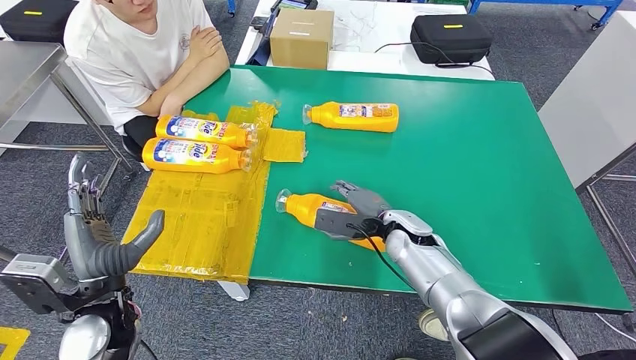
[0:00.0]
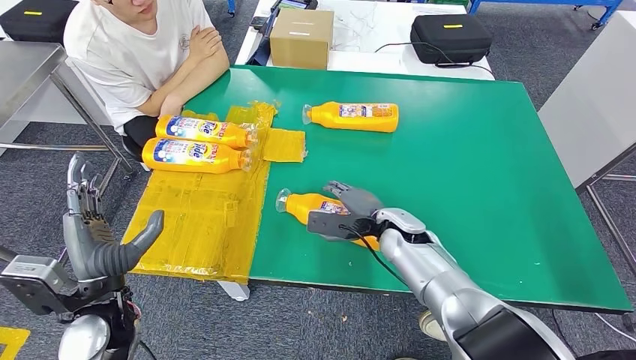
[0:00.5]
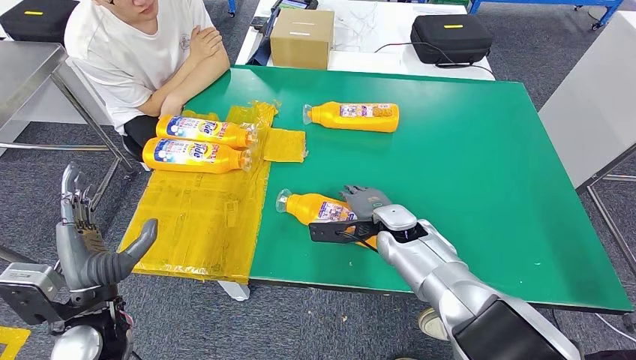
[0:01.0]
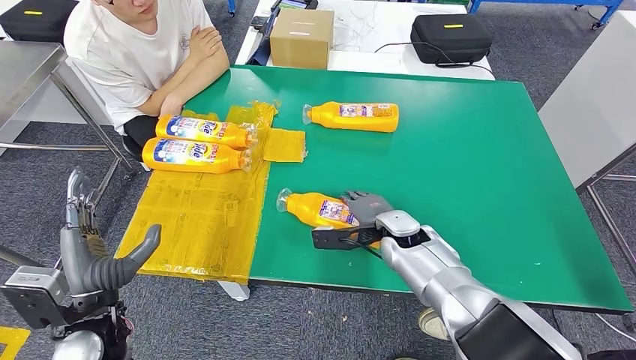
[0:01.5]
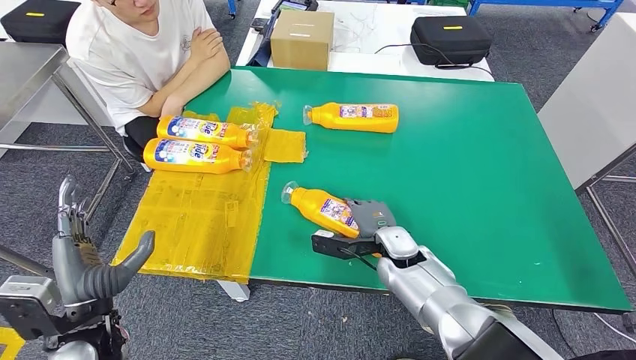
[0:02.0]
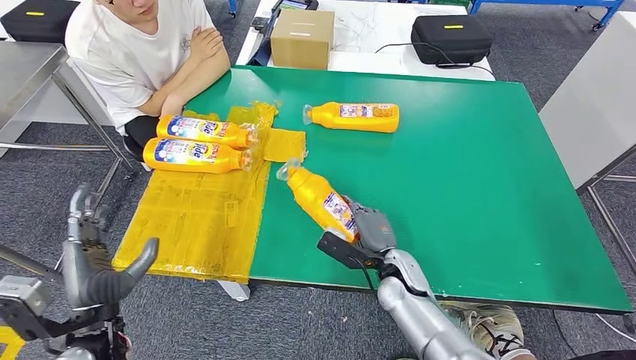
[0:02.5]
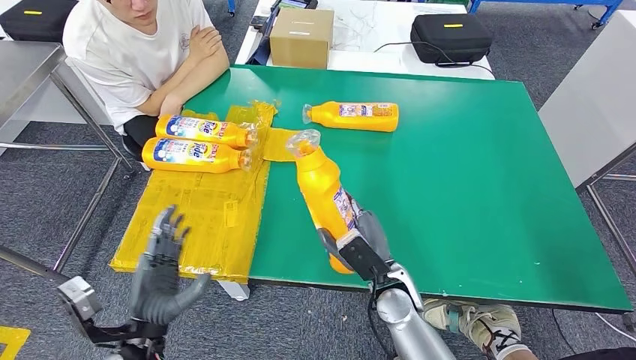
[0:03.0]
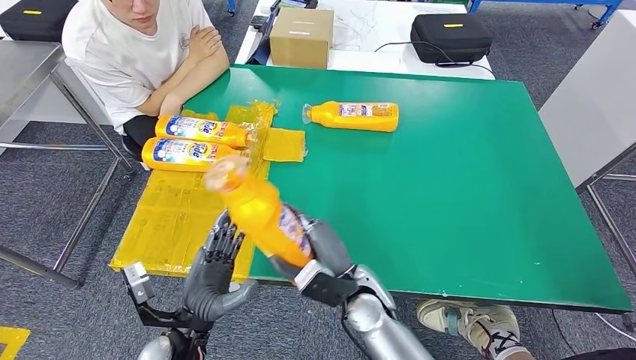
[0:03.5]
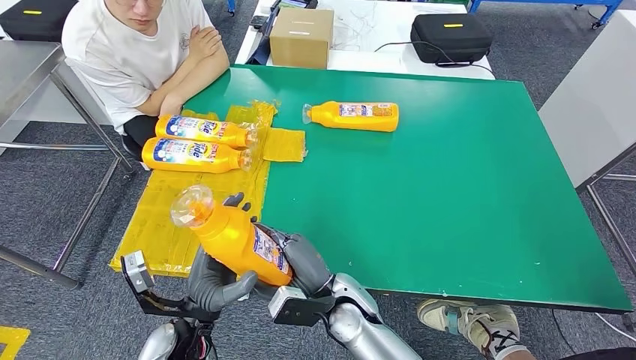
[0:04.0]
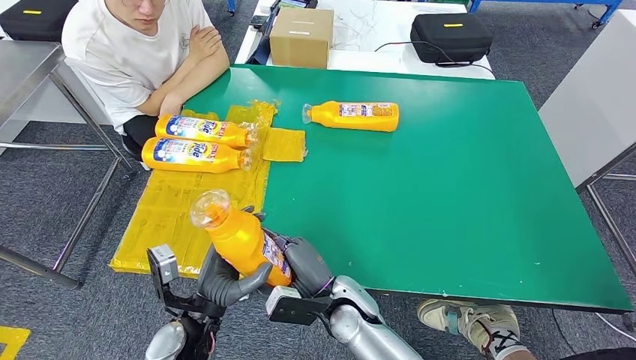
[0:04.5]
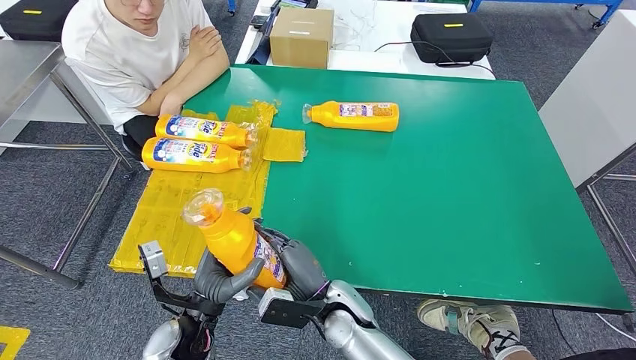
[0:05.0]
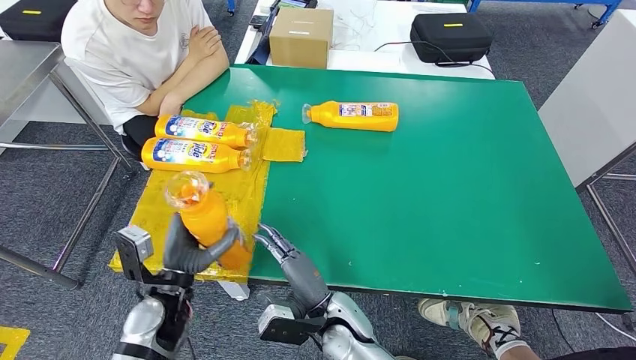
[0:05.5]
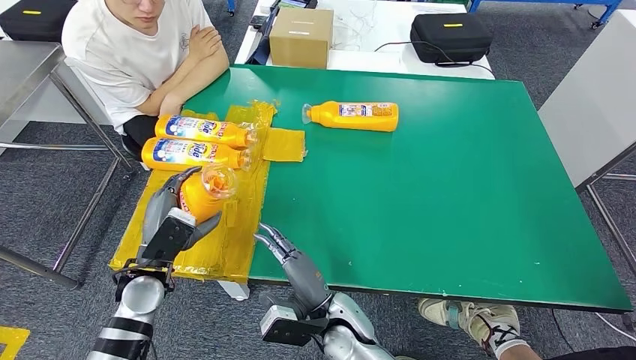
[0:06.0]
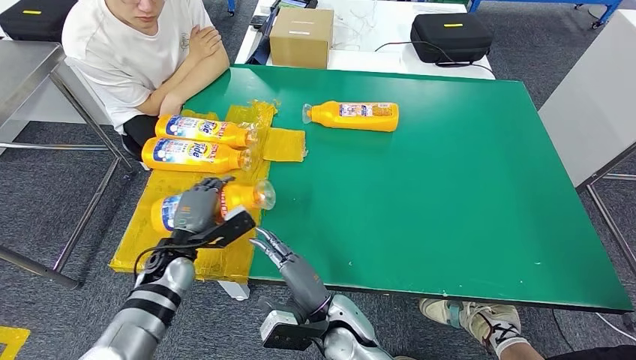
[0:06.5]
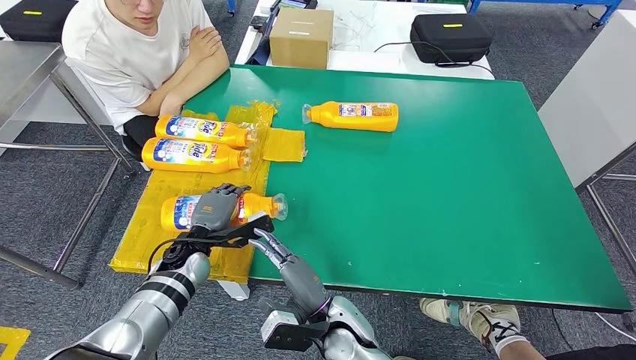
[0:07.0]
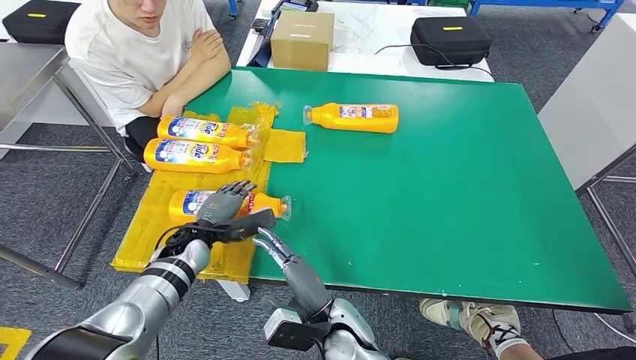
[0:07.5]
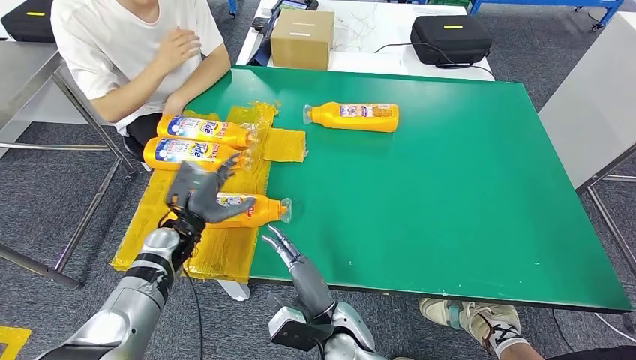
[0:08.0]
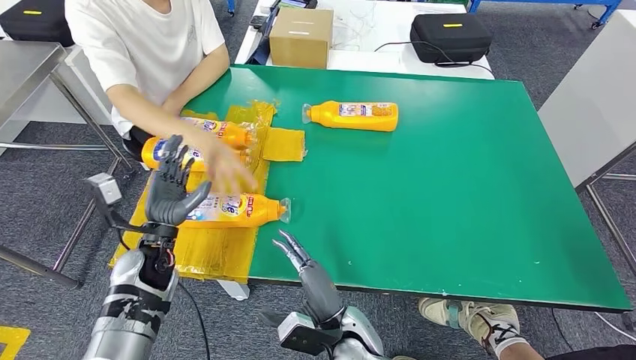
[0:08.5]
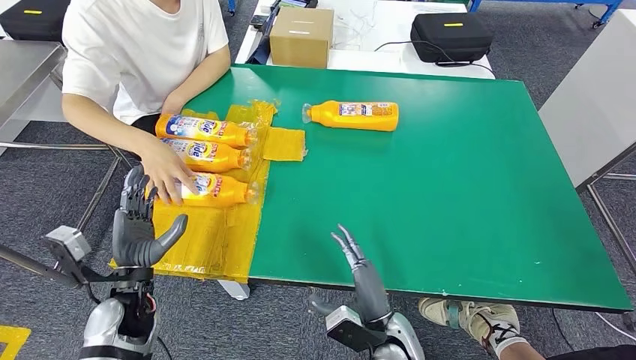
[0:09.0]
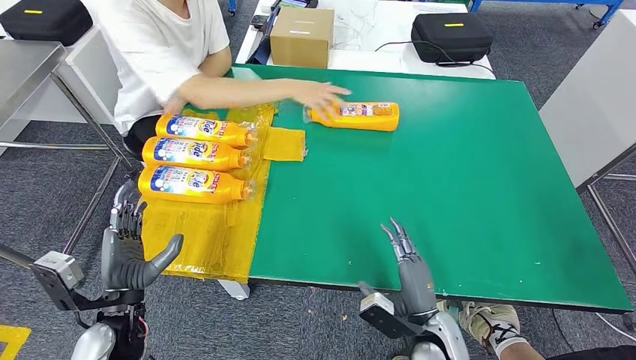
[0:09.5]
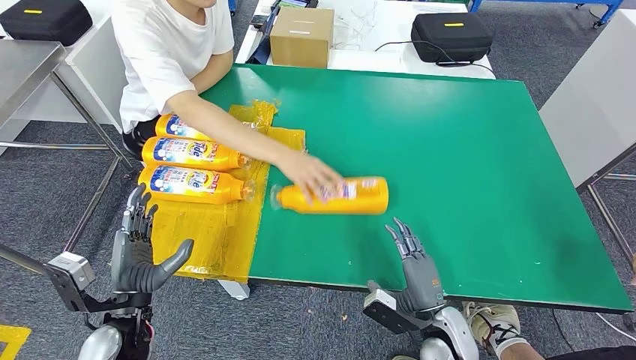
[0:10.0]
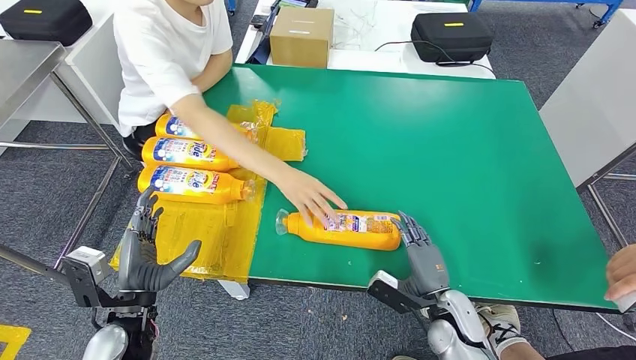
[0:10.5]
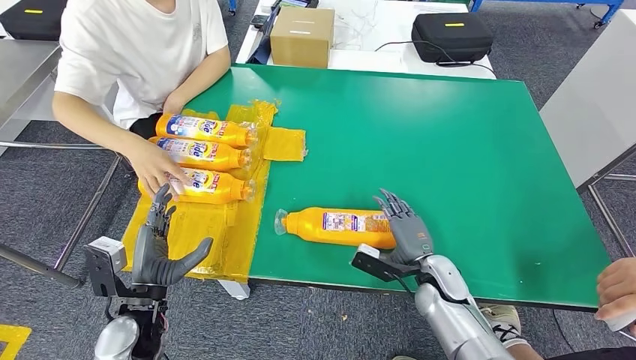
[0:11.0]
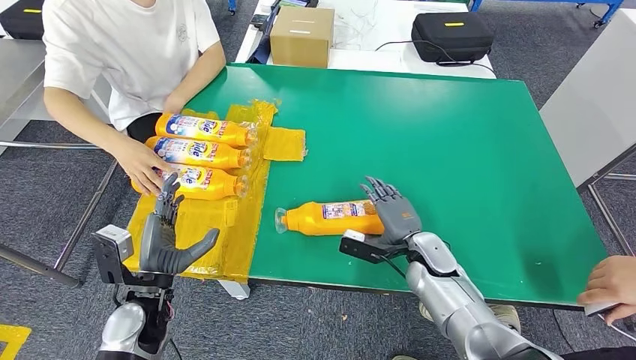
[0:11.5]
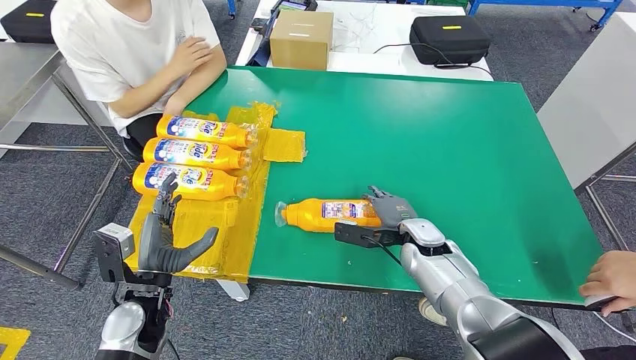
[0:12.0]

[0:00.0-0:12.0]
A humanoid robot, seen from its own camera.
Step, 0:00.0 to 0:03.5: Pick up the fast-moving consumer goods bottle from the table.
Step, 0:04.0 to 0:11.0: Flip the fast-moving consumer goods bottle to the front side.
0:04.0 to 0:06.0: The left hand shifts roughly 15 cm to the left and forward.
0:06.0 to 0:08.0: The left hand shifts about 10 cm forward.

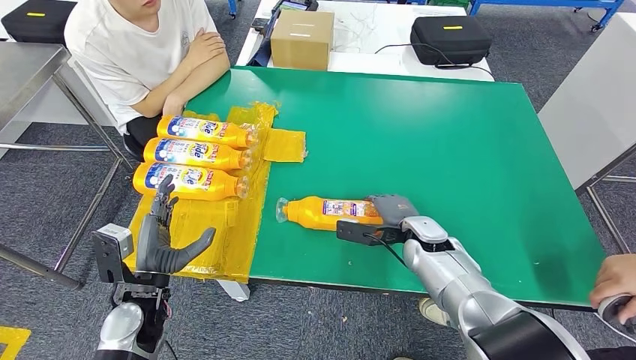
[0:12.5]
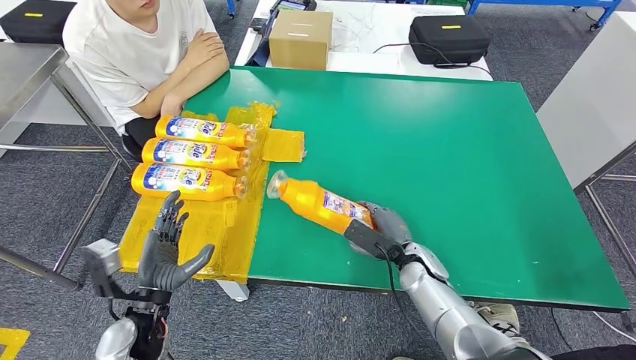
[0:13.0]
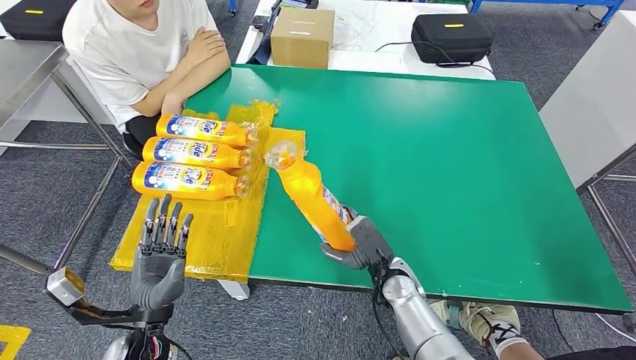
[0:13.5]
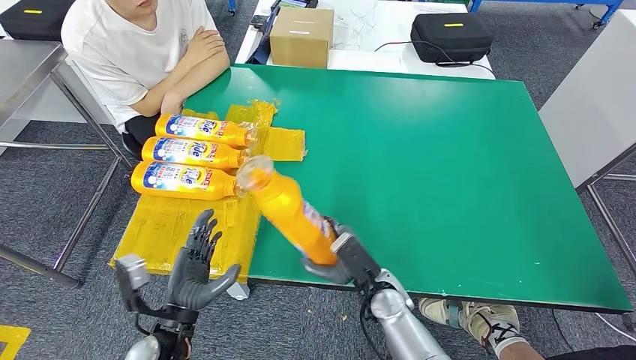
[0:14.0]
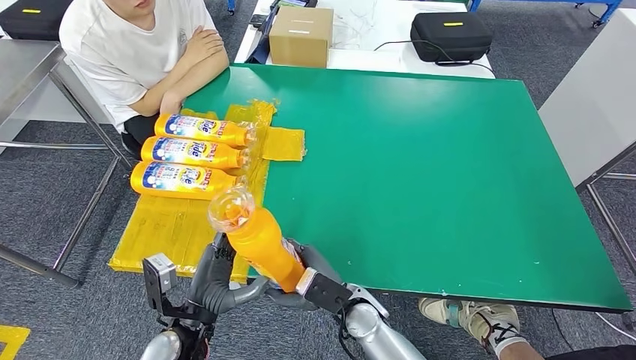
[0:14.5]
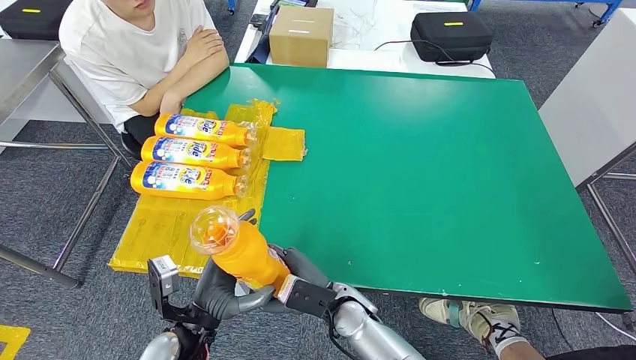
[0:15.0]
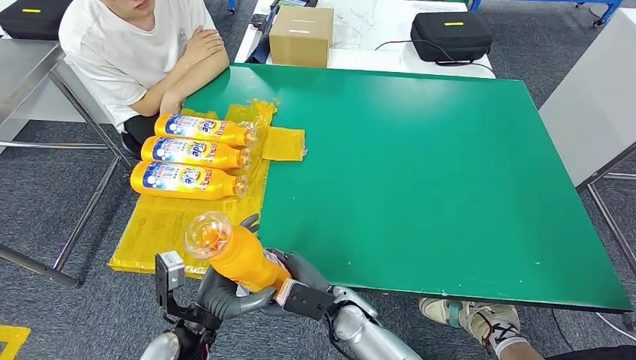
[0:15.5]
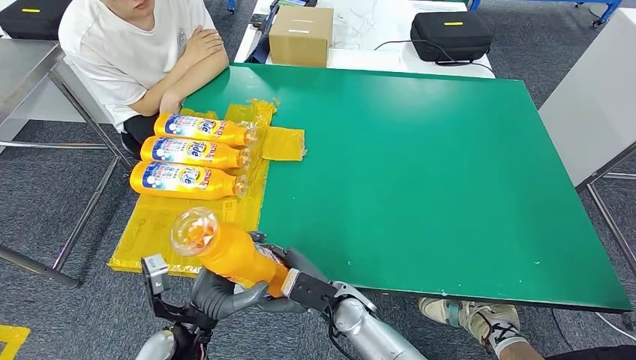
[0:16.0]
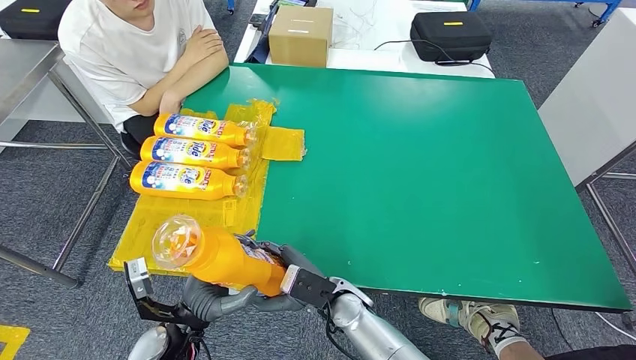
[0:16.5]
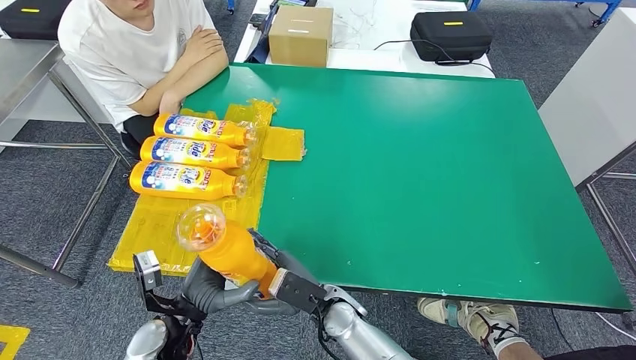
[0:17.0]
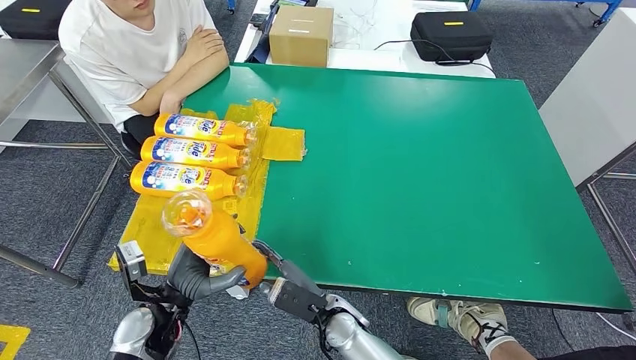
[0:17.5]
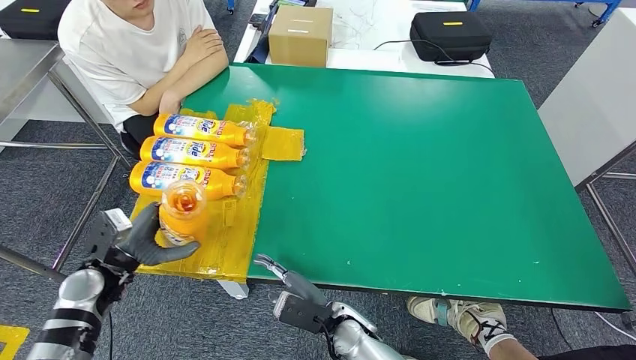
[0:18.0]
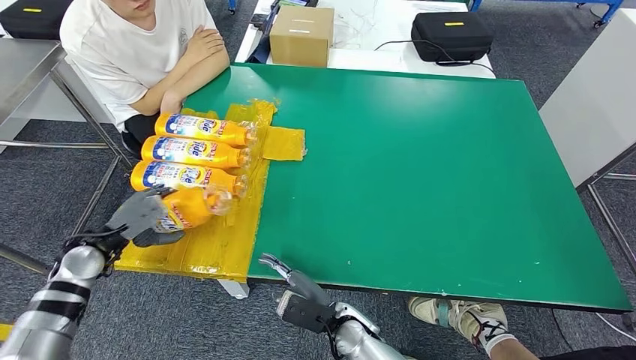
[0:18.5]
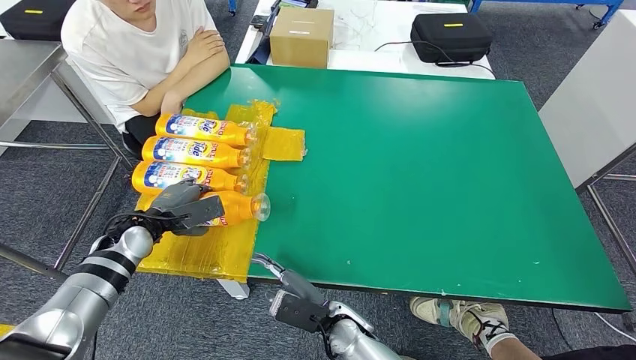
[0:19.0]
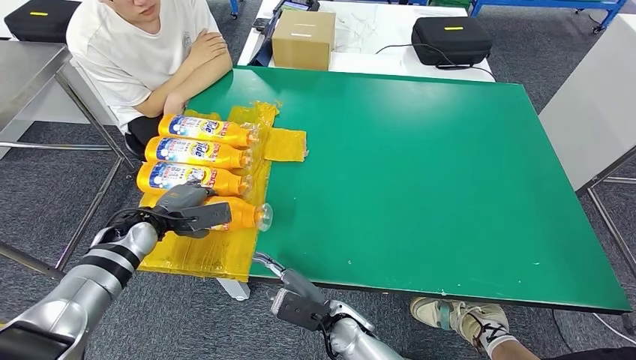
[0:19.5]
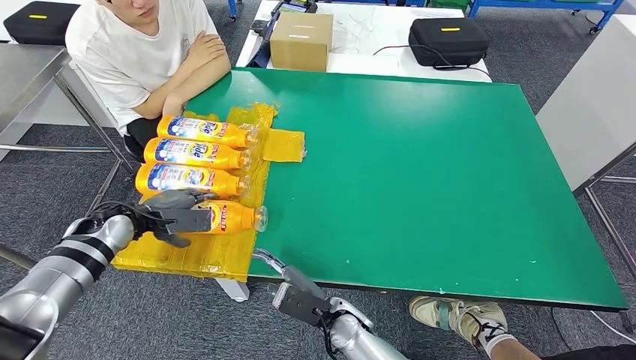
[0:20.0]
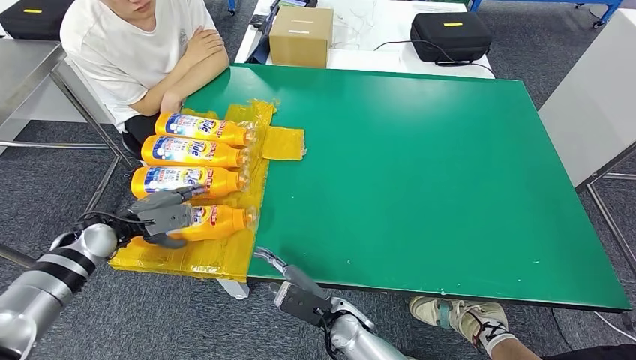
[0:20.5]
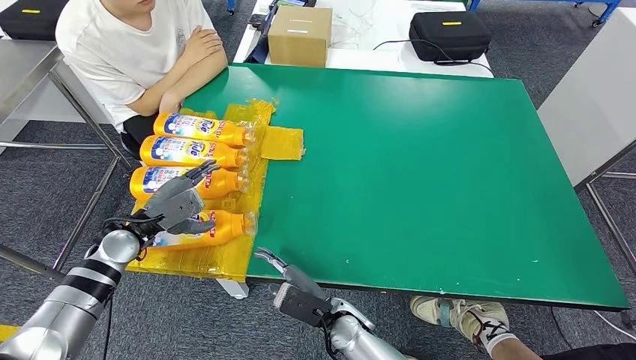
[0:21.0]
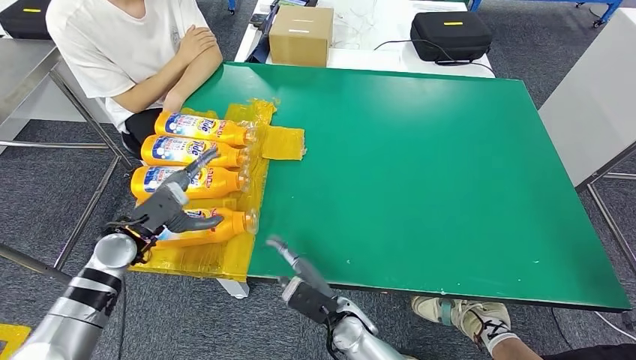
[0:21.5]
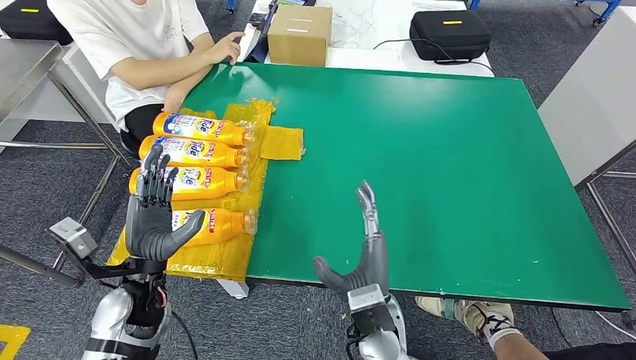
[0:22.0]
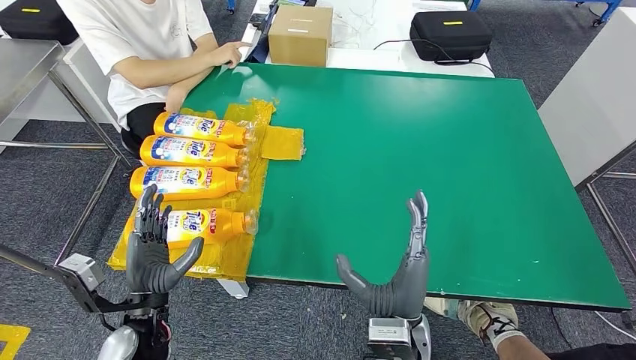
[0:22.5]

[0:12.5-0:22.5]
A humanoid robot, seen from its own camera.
Step, 0:12.5 to 0:14.5: Pick up the fast-moving consumer goods bottle from the table.
Step, 0:15.0 to 0:22.0: Flip the fast-moving consumer goods bottle to the front side.
0:16.5 to 0:18.5: The left hand moves to the left and forward, approximately 25 cm.
0:20.5 to 0:22.5: The right hand goes about 10 cm upward and to the right. Meanwhile the left hand moves to the right and backward, roughly 25 cm.
